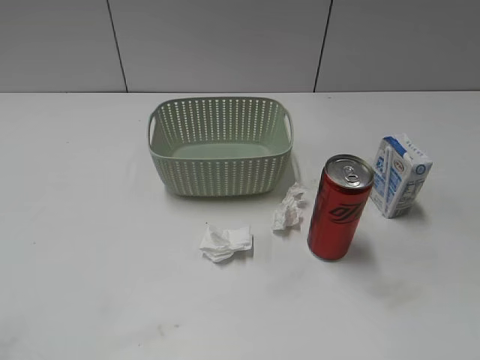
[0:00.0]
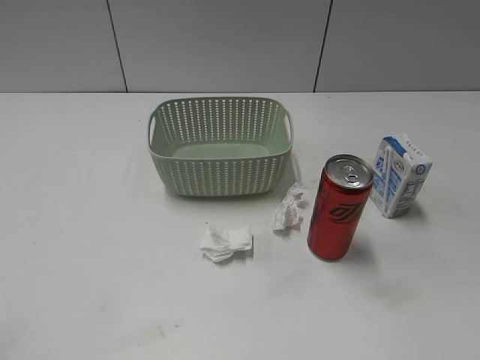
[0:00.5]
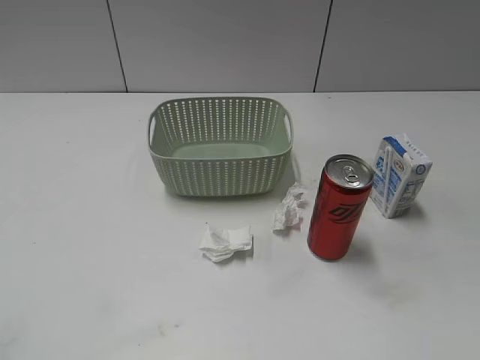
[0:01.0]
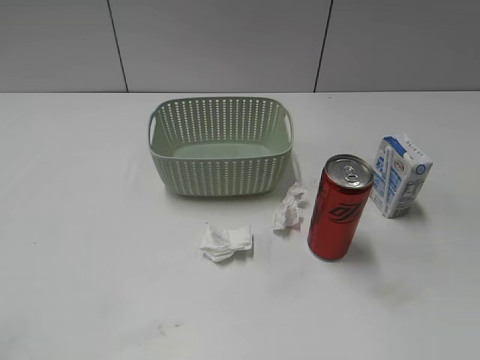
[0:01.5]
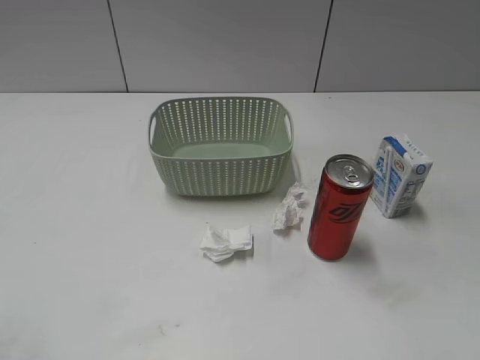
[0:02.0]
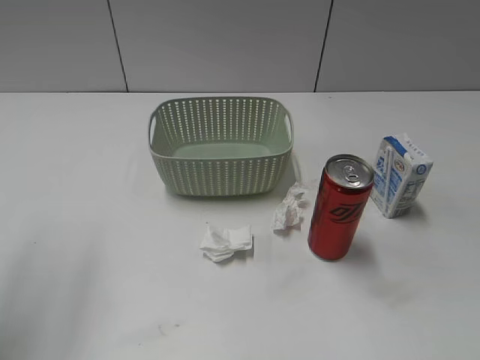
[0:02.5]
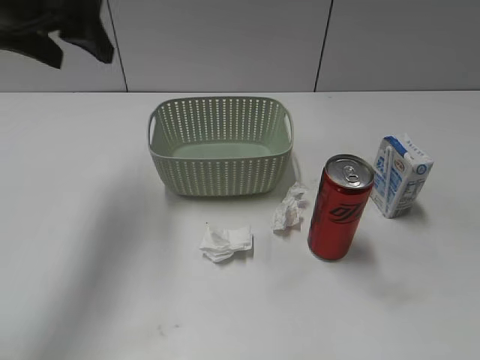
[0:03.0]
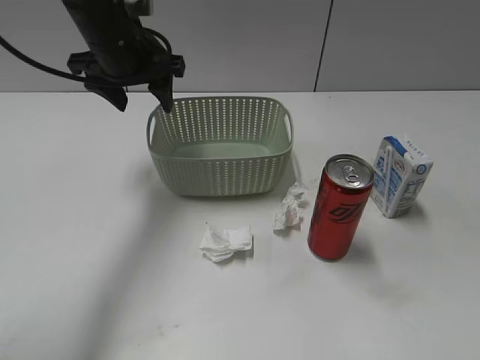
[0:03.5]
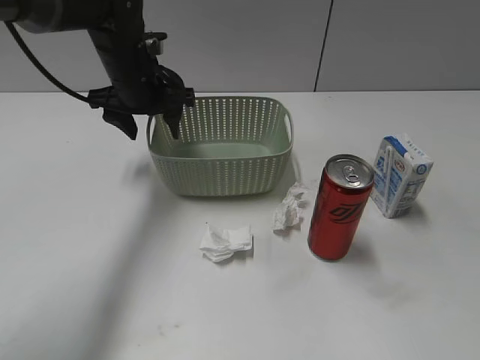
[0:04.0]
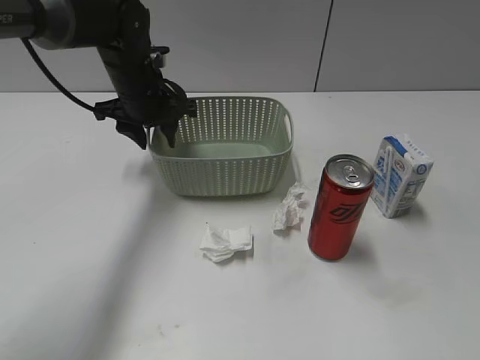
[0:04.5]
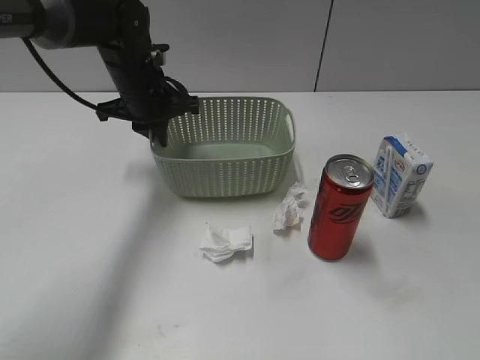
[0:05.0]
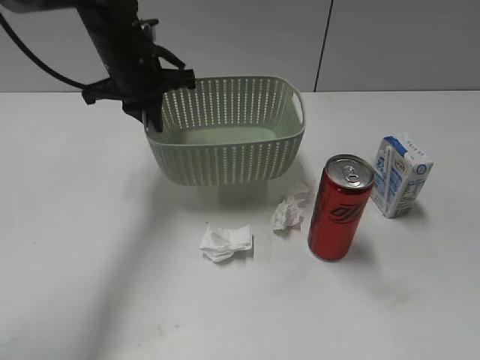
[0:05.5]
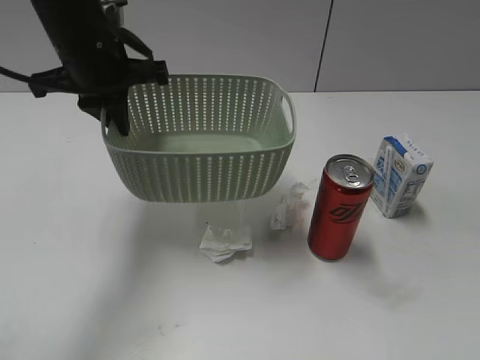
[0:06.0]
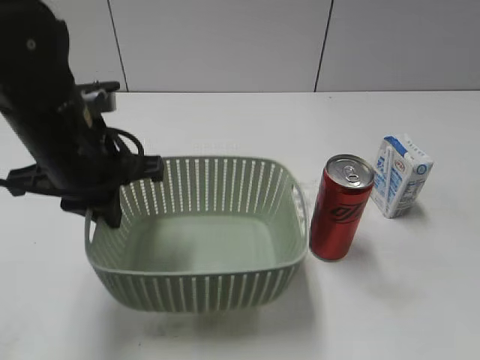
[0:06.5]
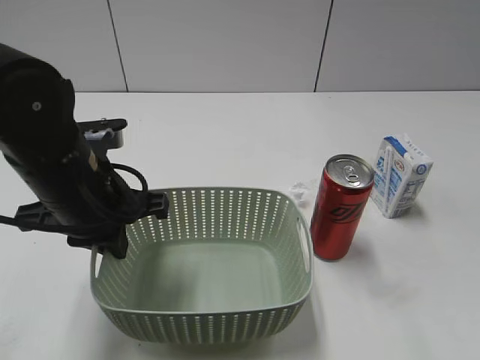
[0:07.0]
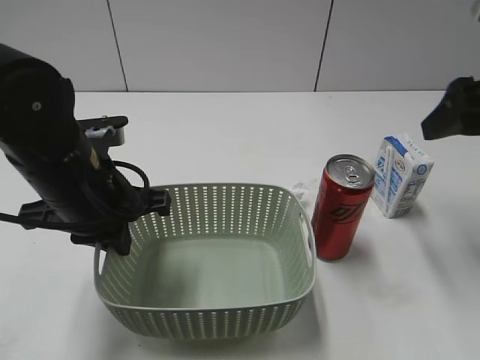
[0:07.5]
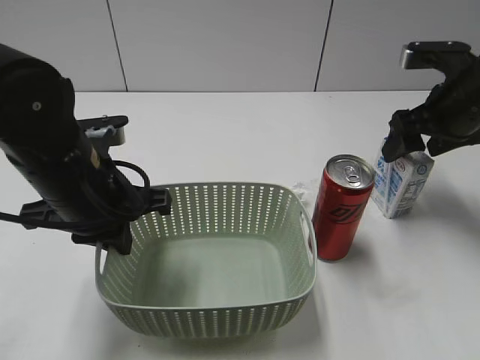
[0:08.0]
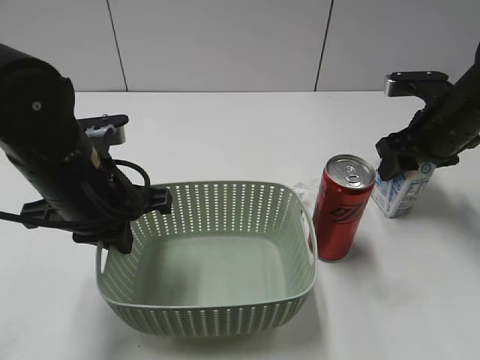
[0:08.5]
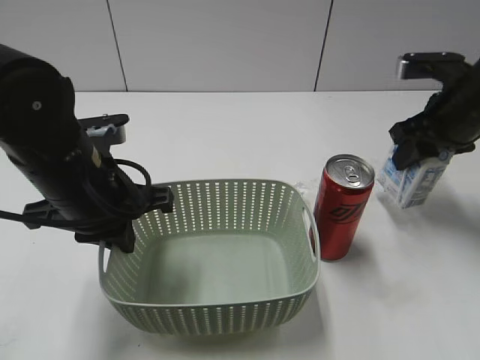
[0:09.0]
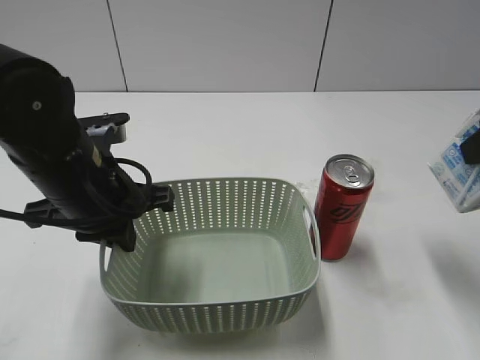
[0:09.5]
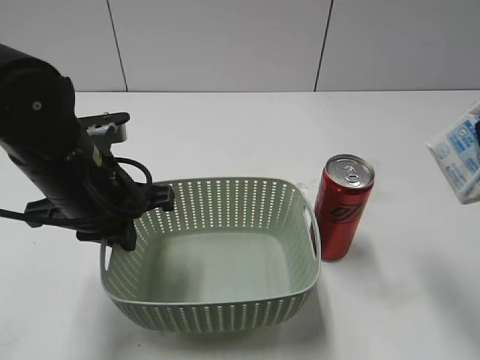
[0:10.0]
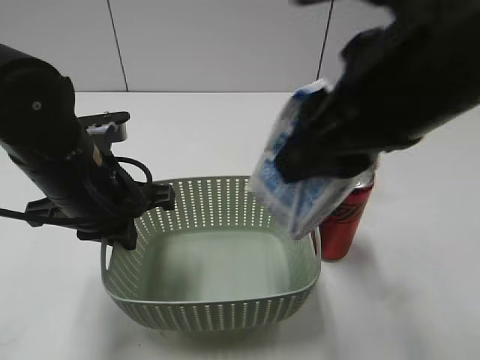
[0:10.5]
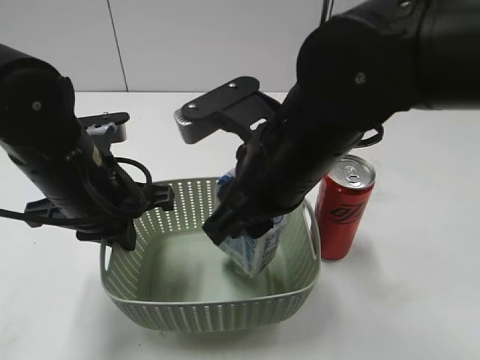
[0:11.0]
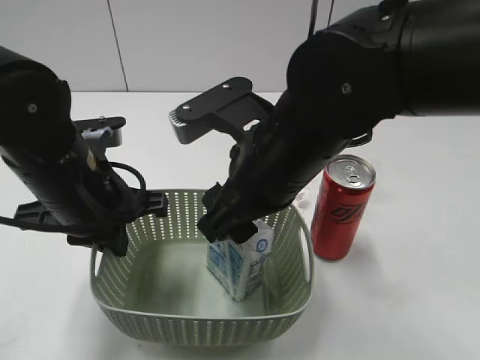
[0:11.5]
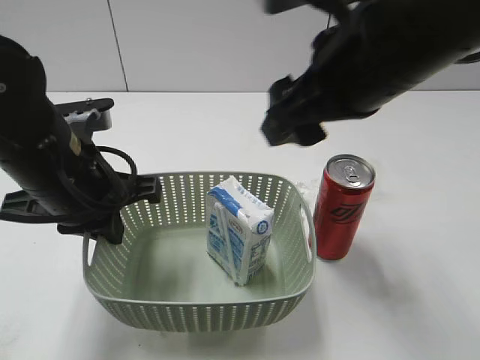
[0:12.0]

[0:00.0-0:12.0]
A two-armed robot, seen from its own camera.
Step, 0:03.0 to 0:05.0: Grasp the basket with left gripper.
Step, 0:05.5 to 0:07.0: Lift the basket with left gripper.
Step, 0:07.5 to 0:08.5: Grasp the milk with right gripper.
Step, 0:09.0 to 0:12.0: Place the milk in the basket with right gripper.
0:02.0 to 0:04.0: The left gripper is displaced forward and to the right by roughly 40 cm.
0:04.0 to 0:06.0: The left gripper is displaced backward and upward by about 10 cm, and closes up.
0:06.0 to 0:08.0: The right gripper goes approximately 35 cm forward; the left gripper heads backward and downward, covering about 15 cm.
0:08.0 to 0:10.0: The right gripper goes about 25 cm backward and upward, and closes.
0:10.0 to 0:12.0: The right gripper shifts about 15 cm to the left and forward, and opens up.

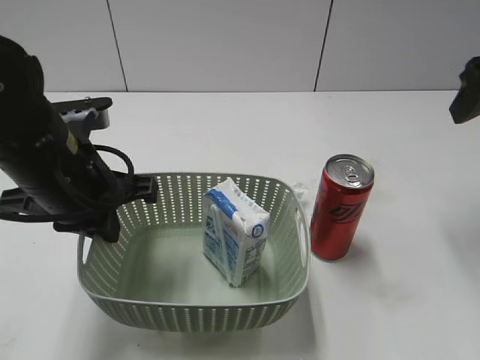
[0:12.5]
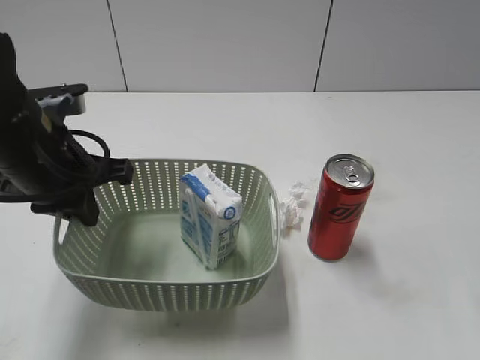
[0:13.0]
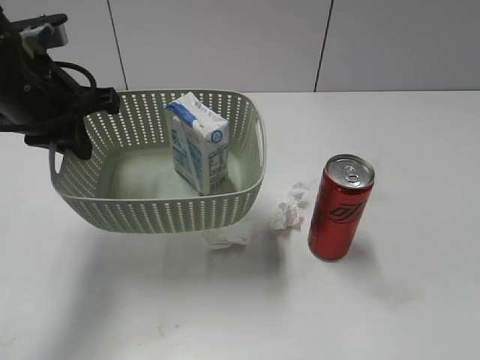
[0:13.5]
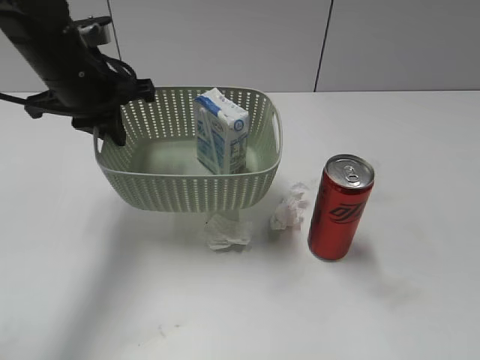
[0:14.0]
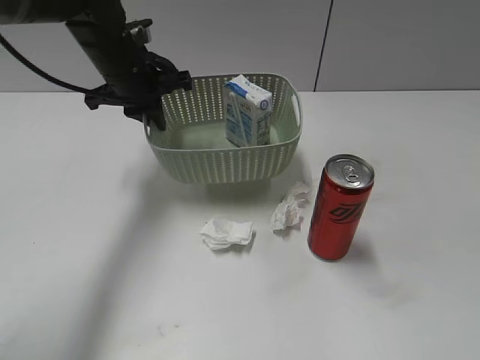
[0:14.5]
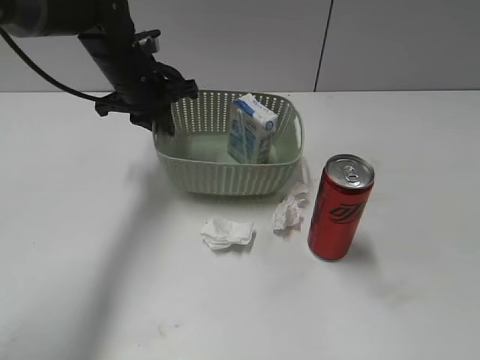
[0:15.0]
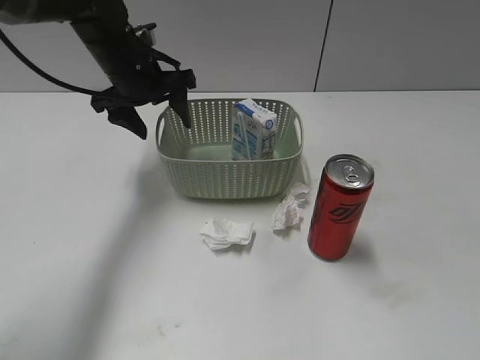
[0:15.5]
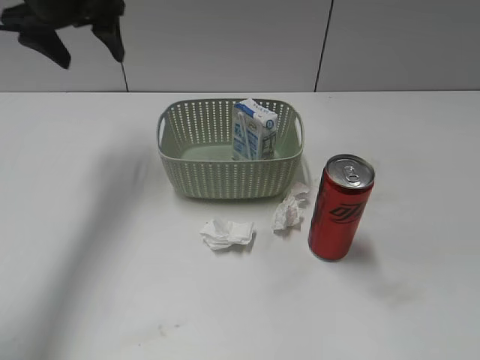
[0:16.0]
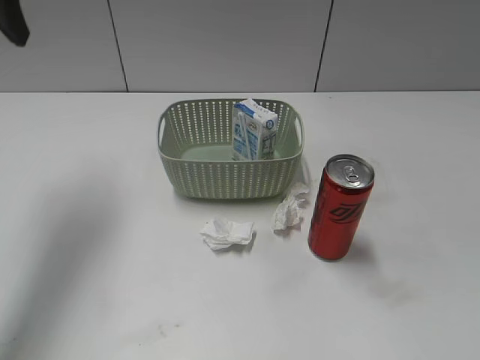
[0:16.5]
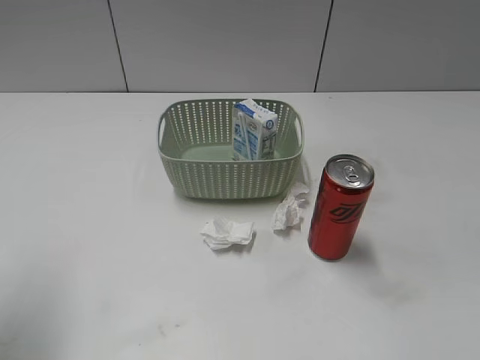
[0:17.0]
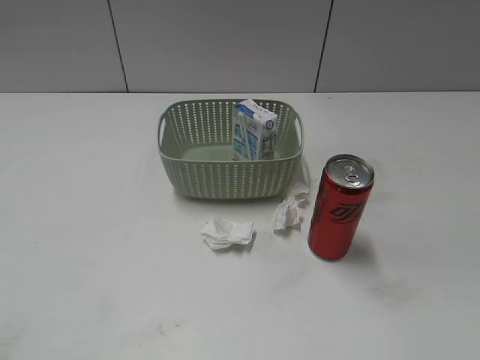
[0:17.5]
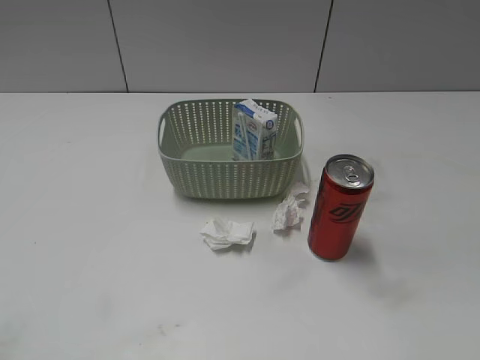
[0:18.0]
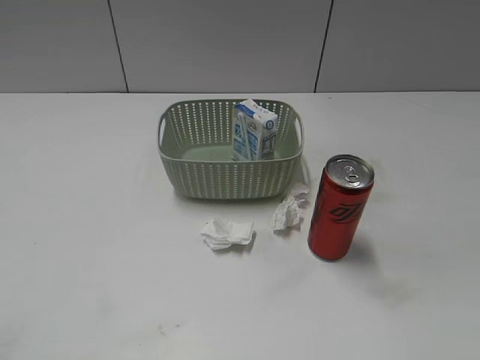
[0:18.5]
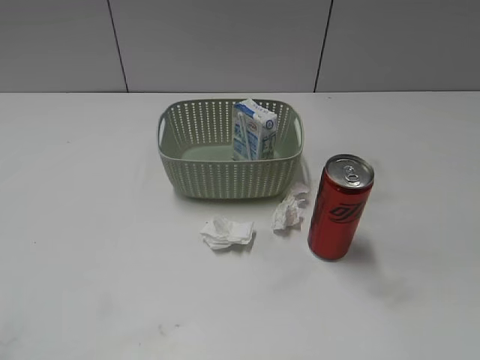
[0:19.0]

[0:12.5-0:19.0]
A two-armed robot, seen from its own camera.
Step, 0:12.5 to 0:15.5: Place the basket on the table with left gripper.
0:12.5 to 0:14.5: The left gripper travels forward by approximately 20 cm; the right gripper travels backward by some 30 cm.
0:14.5 to 0:17.0: The left gripper goes approximately 30 cm backward, to the left and upward, and opens up.
0:17.0 to 0:19.0: The left gripper travels backward by roughly 20 cm.

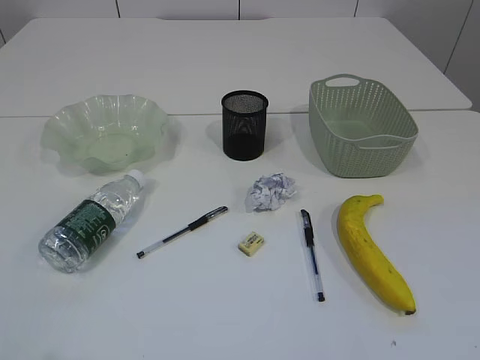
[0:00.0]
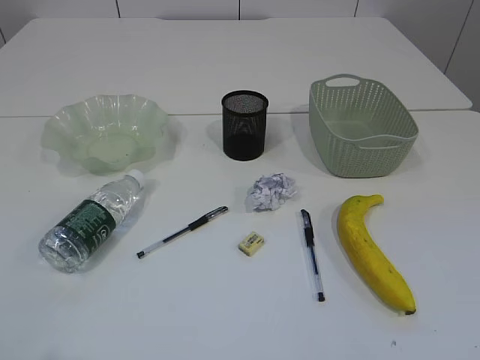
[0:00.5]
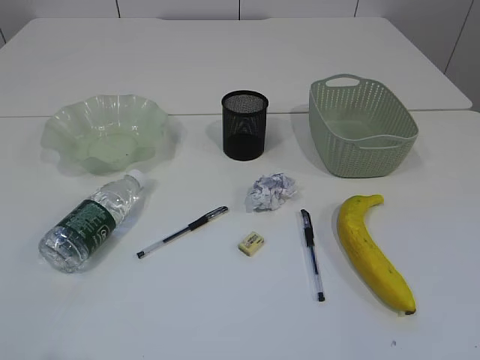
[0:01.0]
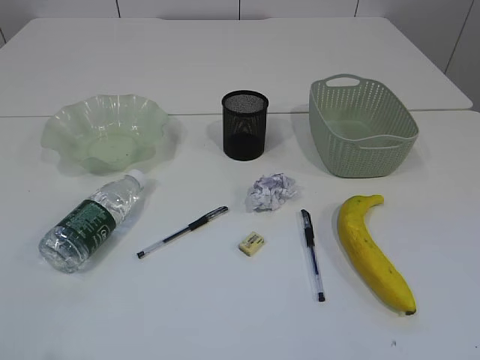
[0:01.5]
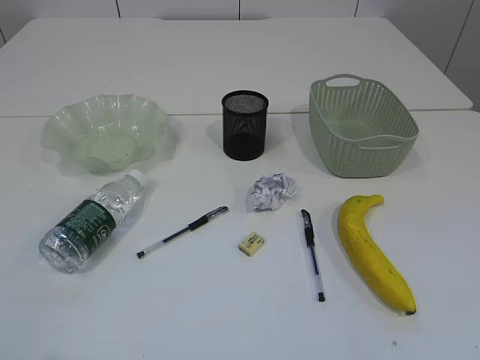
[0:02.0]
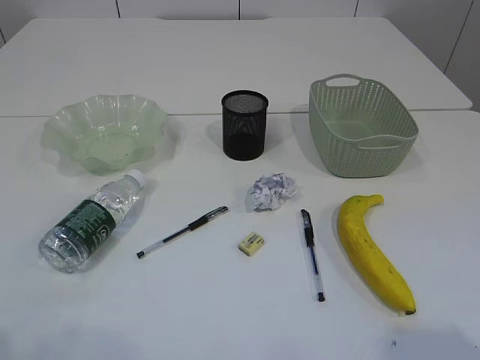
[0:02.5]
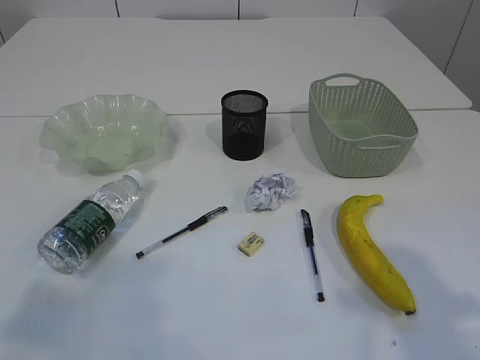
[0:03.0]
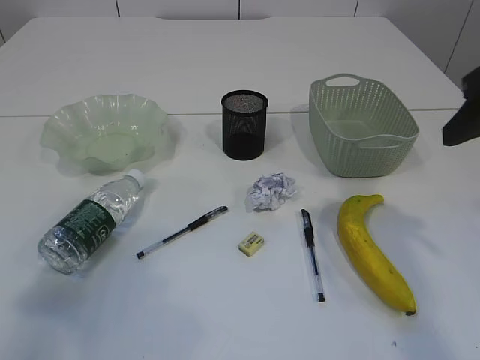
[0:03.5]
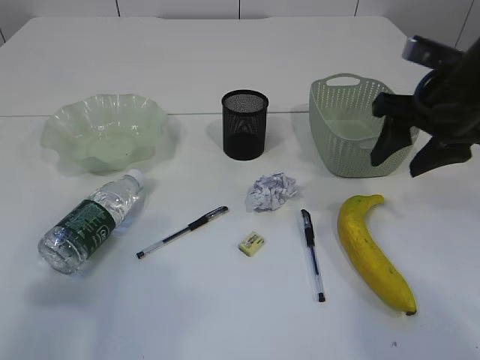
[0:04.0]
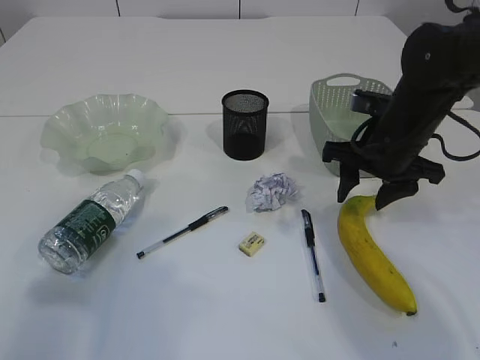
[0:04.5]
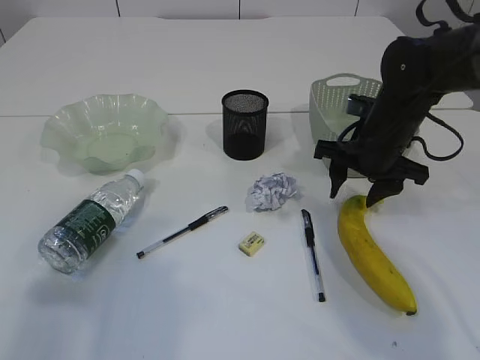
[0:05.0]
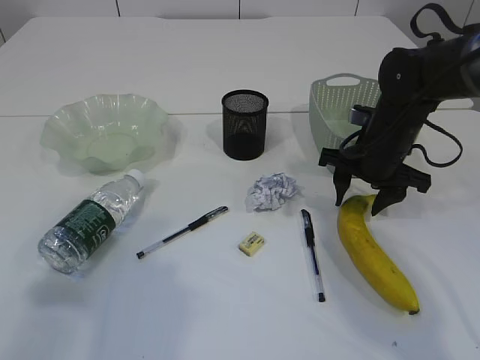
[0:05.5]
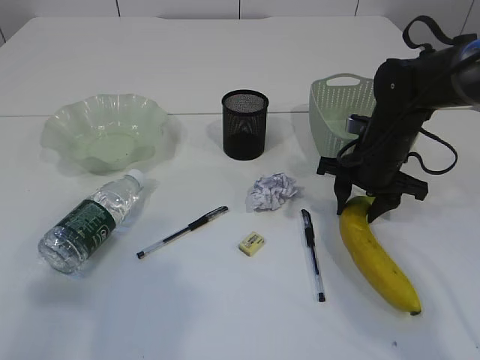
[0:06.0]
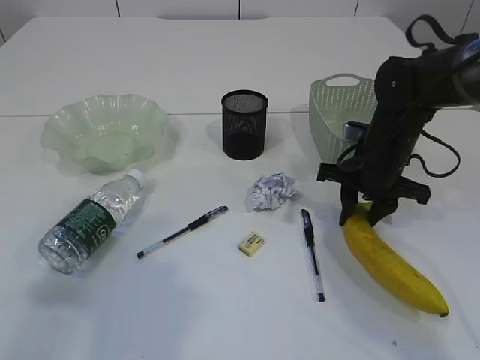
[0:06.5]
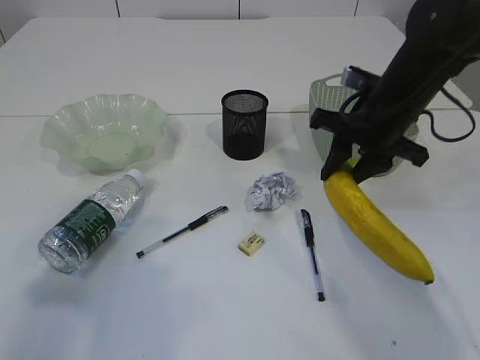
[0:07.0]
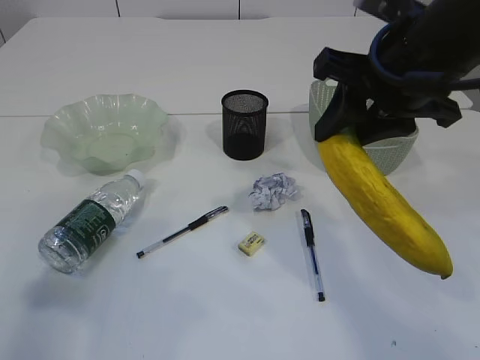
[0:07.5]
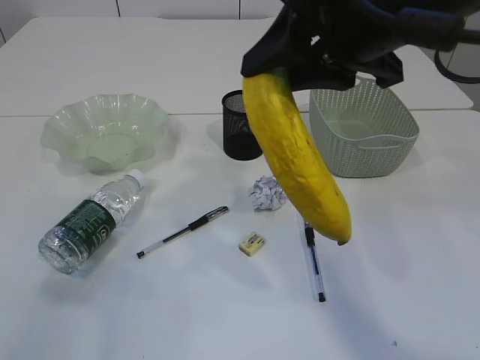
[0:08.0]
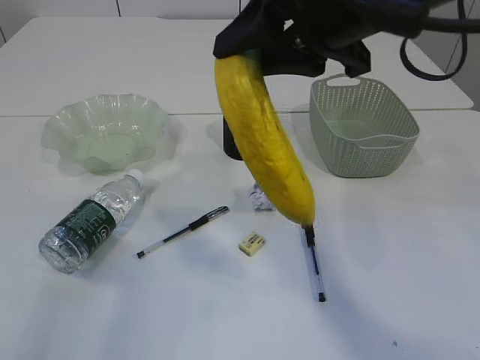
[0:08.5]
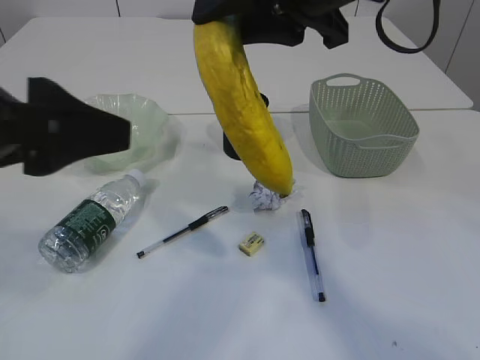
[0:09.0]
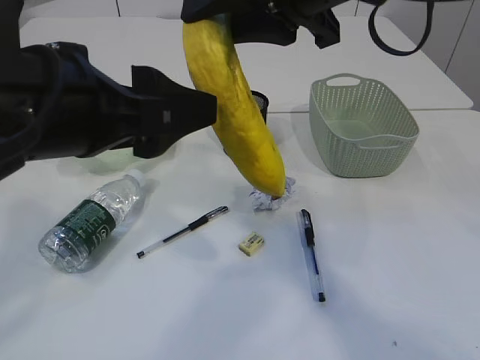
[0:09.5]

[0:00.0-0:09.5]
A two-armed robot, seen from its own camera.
0:02.0 to 0:04.0: The right gripper is displaced forward by approximately 35 cm; the left gripper goes approximately 15 cm forward.
0:04.0 to 0:05.5: The right gripper shifts some 15 cm downward and forward.
0:05.5 to 0:07.5: The right gripper heads upward and backward, covering some 20 cm, and closes up.
0:07.5 to 0:09.5: The left gripper is displaced to the right by approximately 20 cm, while the right gripper travels to the left and upward by some 10 cm.
